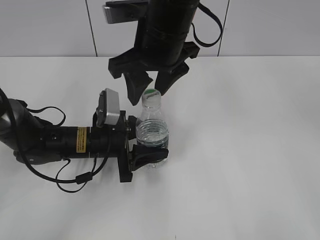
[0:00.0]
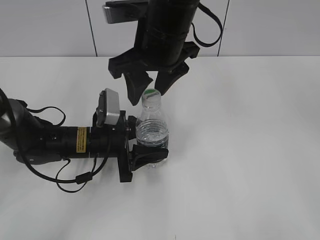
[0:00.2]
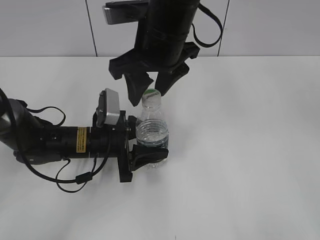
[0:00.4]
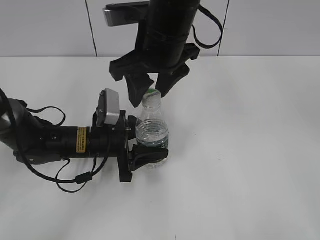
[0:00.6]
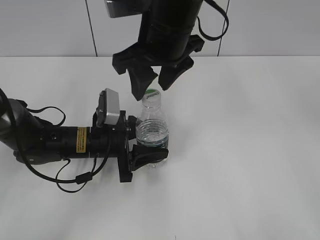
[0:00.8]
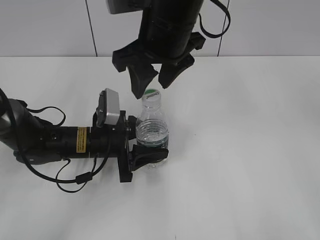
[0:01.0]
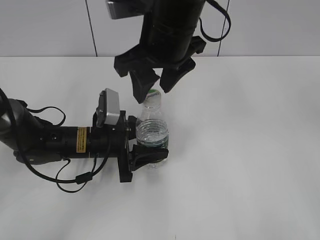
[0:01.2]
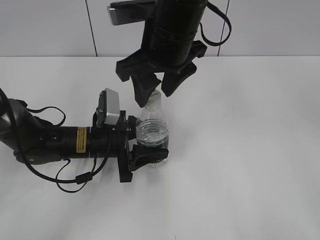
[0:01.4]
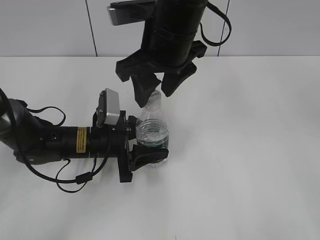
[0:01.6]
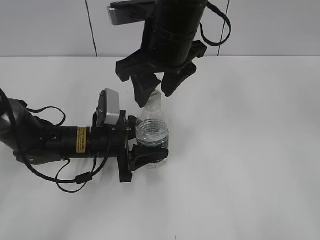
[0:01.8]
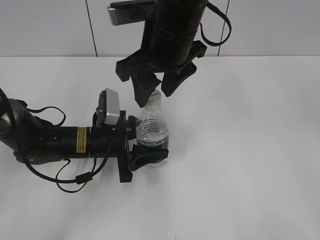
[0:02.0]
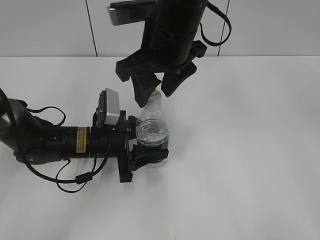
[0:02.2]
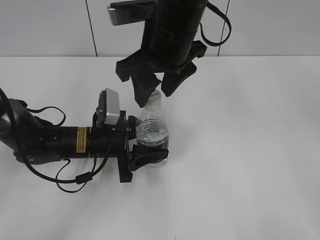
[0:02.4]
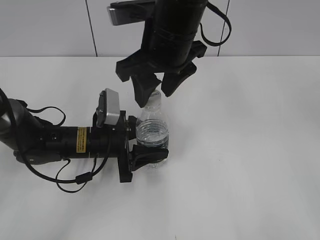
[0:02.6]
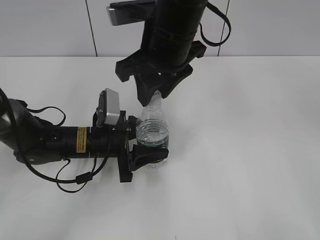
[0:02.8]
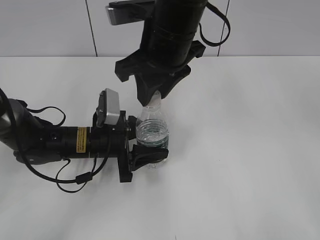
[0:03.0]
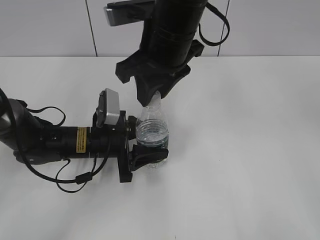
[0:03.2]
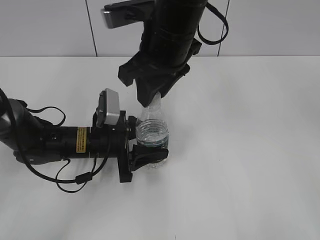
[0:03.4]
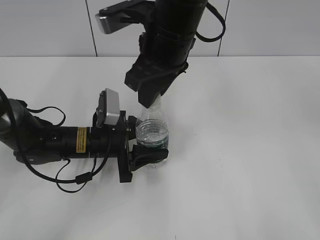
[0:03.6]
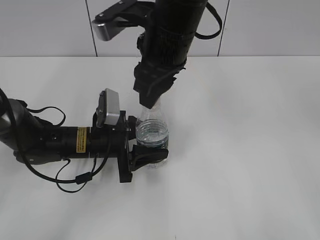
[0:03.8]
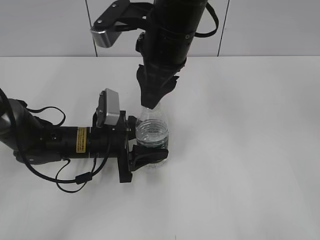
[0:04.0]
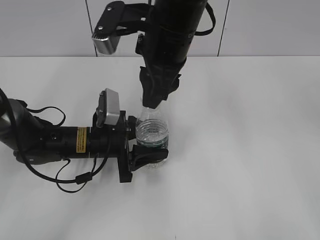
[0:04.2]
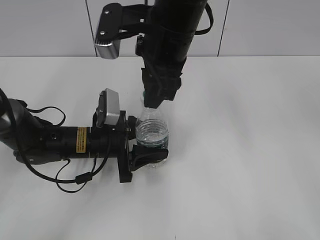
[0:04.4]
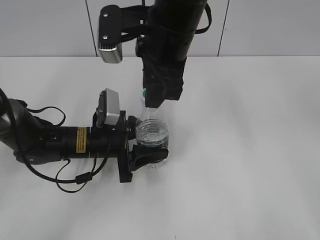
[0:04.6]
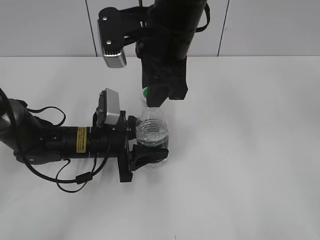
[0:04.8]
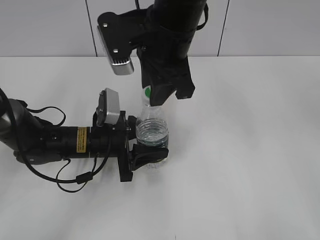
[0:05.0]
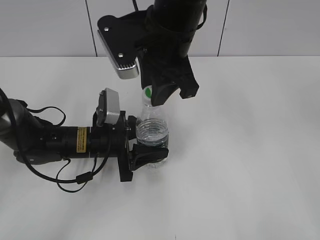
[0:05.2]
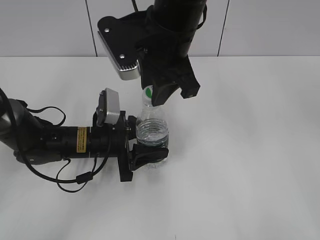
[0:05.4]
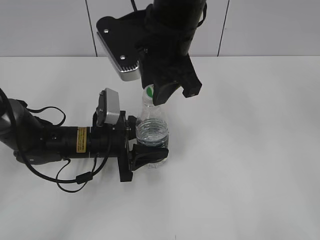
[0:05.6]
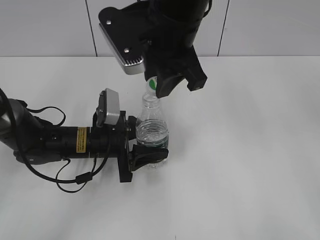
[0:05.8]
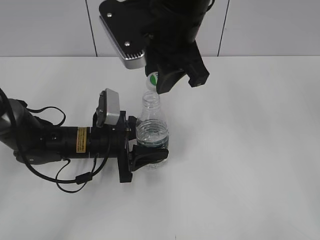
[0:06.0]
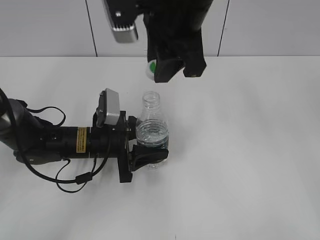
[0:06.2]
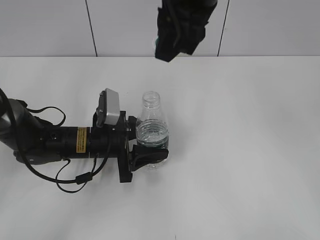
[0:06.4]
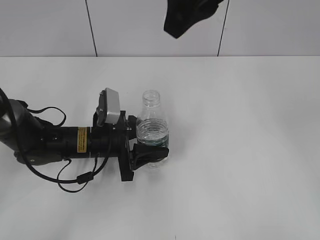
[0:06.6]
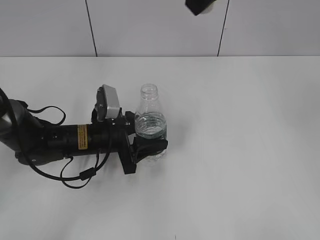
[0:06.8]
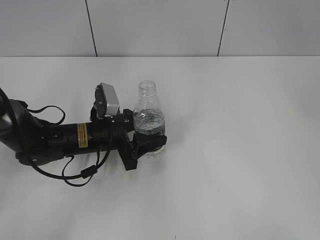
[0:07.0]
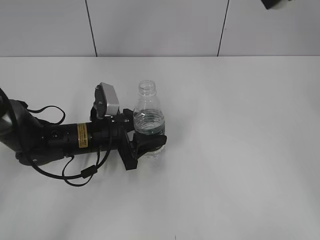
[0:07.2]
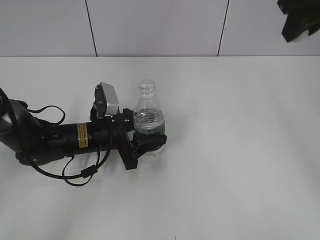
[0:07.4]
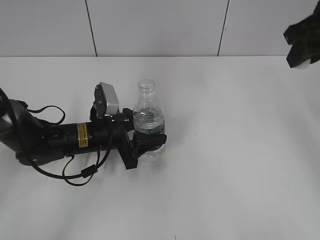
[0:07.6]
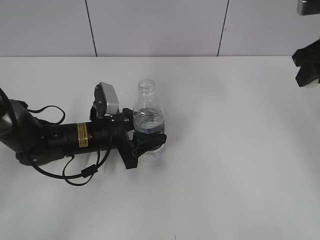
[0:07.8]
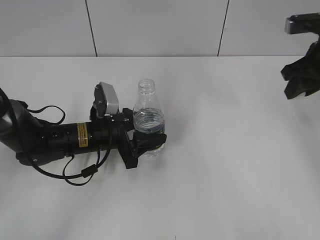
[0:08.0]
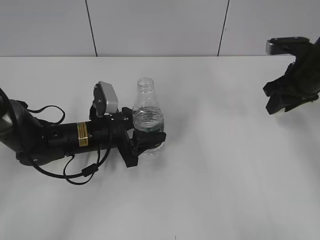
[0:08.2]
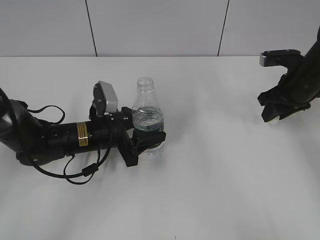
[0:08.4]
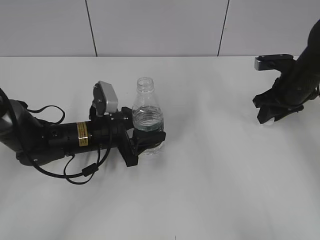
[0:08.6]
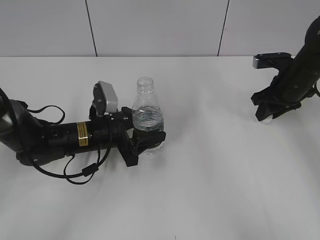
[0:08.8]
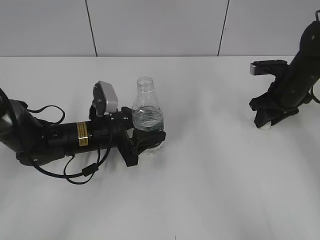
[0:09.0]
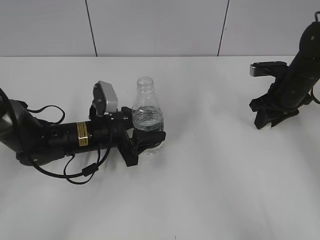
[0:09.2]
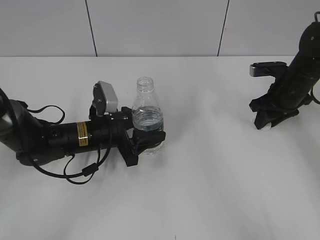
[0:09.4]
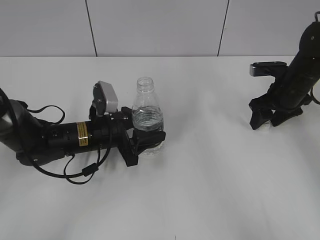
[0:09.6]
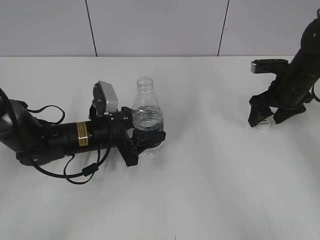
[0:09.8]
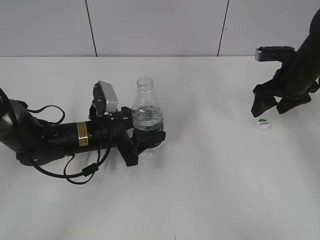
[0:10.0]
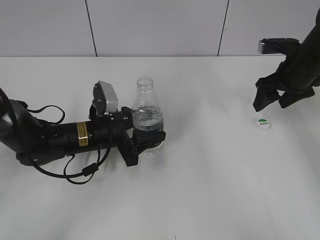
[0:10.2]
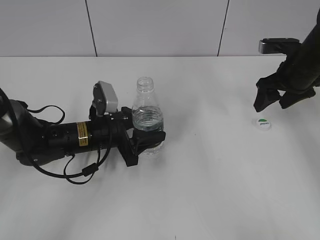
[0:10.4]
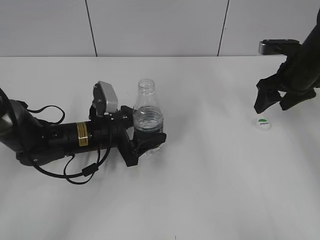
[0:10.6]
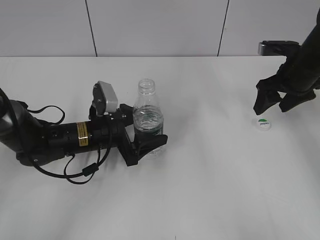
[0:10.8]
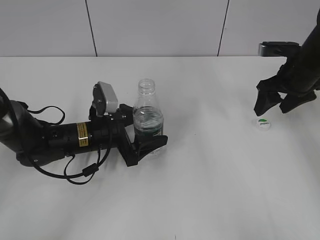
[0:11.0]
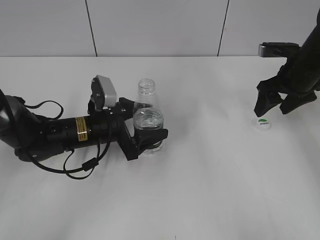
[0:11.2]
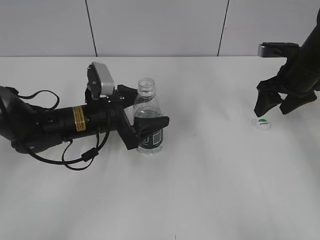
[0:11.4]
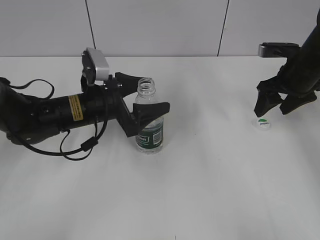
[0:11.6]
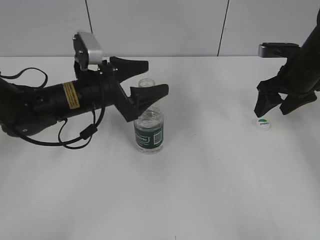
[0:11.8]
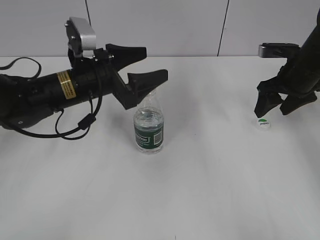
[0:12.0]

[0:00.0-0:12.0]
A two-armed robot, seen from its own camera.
Step, 0:00.0 to 0:06.0: Unscrew the bottle cap with the right gripper while holding the bottle with the left gripper.
Step, 0:06.2 to 0:10.2: Place the bottle cap on the table with the right gripper.
Step, 0:10.4 to 0:11.2: Place the bottle on the table with the left gripper.
0:00.0 to 0:01.6: The grippers move only a little.
0:01.6 to 0:03.0: The right gripper closes.
0:06.0 to 0:07.6: The right gripper is displaced to the right by about 25 cm.
0:07.6 to 0:09.0: The right gripper goes roughly 20 cm downward.
0:09.0 to 0:10.4: The right gripper travels upward by approximately 5 cm, and opens.
0:10.4 to 0:12.0: The left gripper heads upward, covering roughly 10 cm, and opens its fingers.

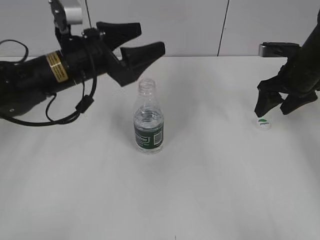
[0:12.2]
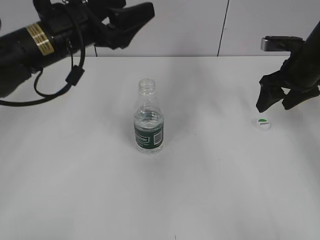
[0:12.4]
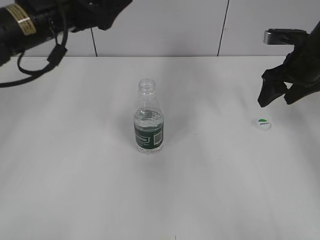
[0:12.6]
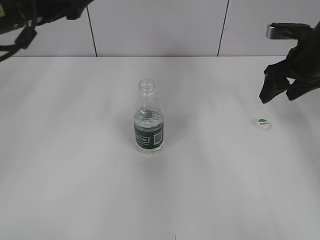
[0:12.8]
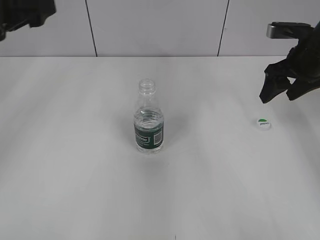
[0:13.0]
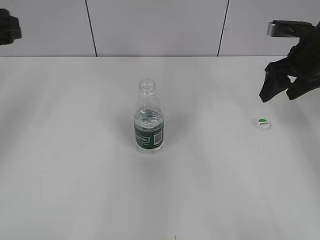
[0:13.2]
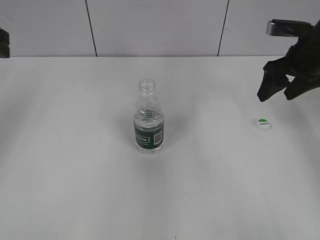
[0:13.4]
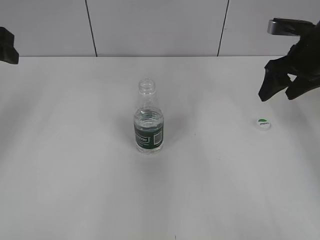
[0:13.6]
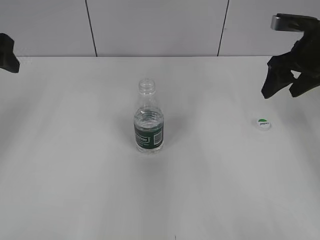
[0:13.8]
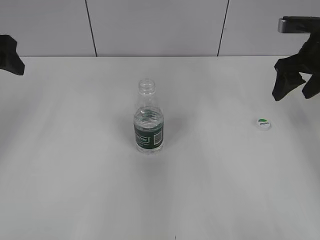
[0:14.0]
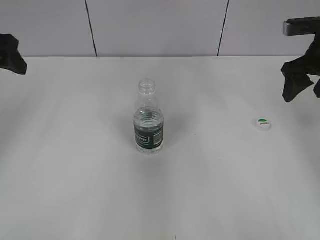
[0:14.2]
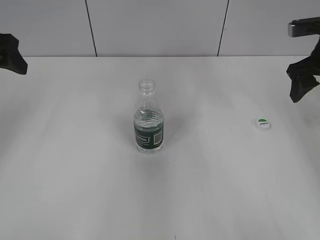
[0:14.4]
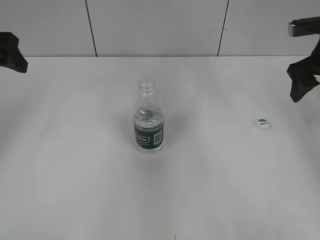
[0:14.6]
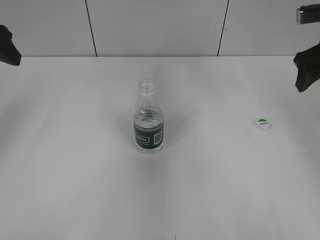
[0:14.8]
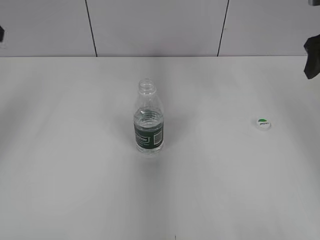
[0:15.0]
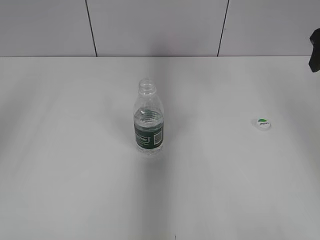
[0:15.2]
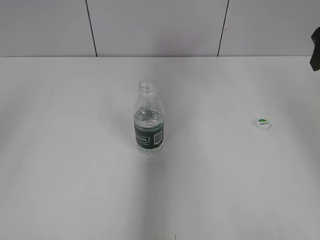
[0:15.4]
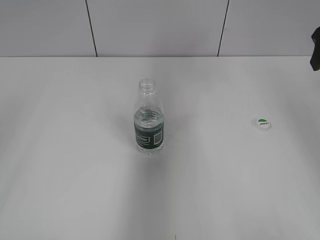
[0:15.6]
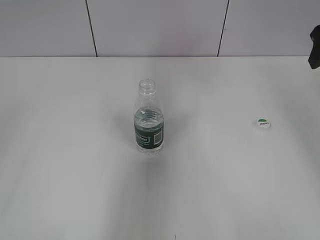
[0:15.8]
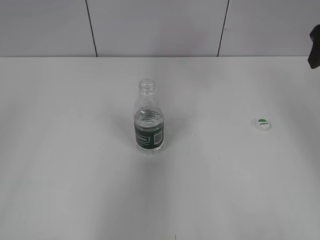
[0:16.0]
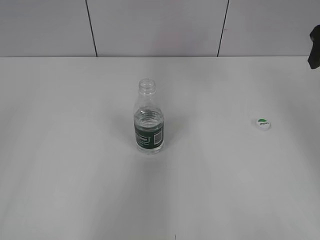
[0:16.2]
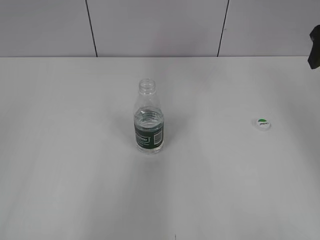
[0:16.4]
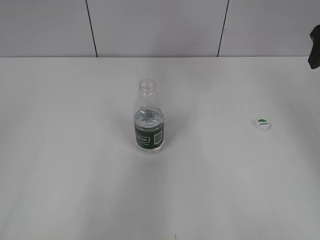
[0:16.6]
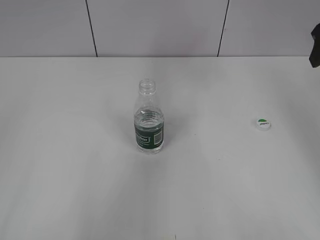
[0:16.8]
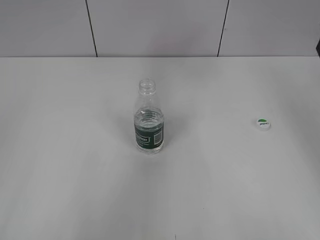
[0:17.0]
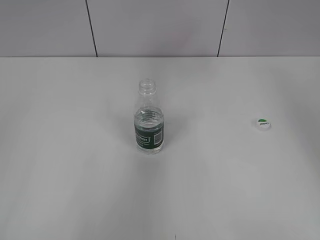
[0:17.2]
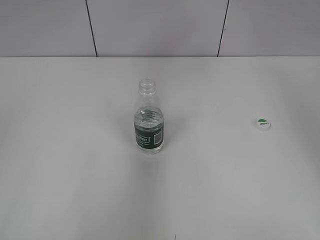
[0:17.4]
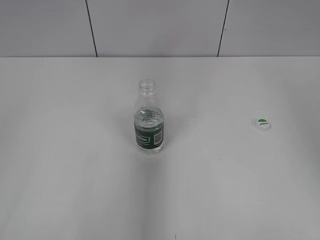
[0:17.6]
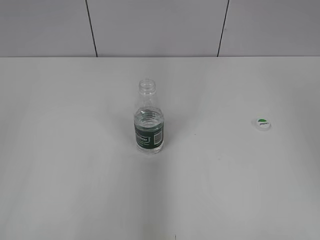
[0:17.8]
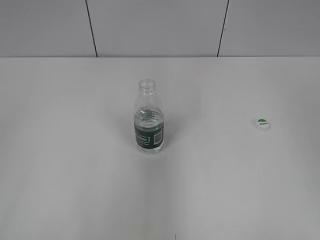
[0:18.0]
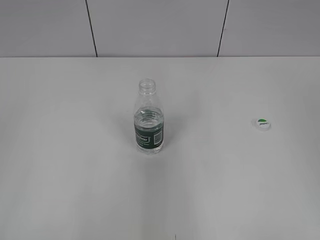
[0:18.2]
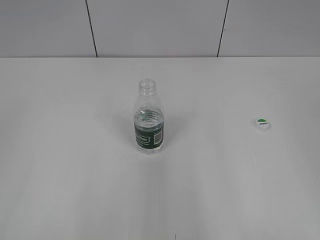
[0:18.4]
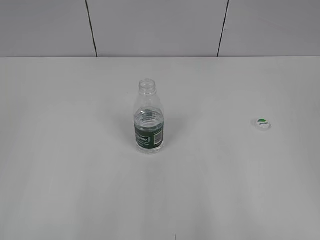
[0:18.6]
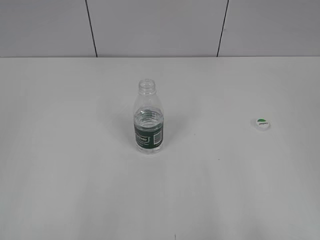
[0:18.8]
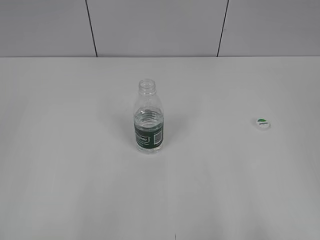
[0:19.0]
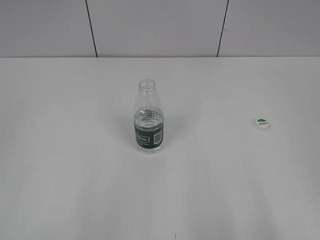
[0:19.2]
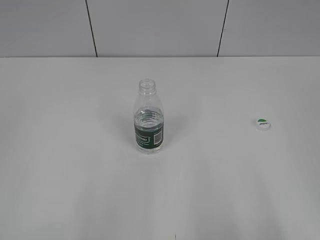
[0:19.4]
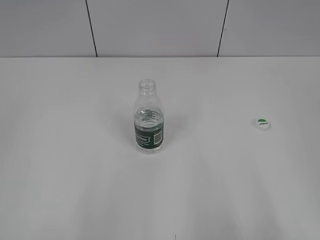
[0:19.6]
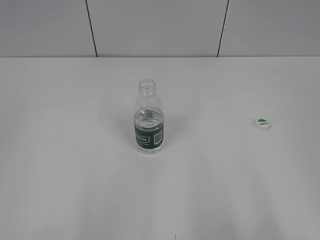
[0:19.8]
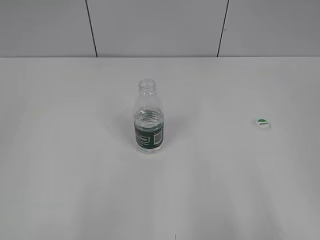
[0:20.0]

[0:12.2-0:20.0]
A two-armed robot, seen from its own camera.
0:12.2 to 0:13.8: The right gripper shifts some 5 cm upward. The left gripper shifts about 20 cm to the left and upward.
0:13.8 to 0:15.4: The right gripper travels upward by about 5 cm. Meanwhile the left gripper goes some 25 cm backward and upward.
0:15.4 to 0:16.8: The left gripper moves backward and downward, roughly 20 cm, and closes its fingers.

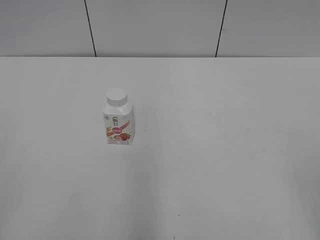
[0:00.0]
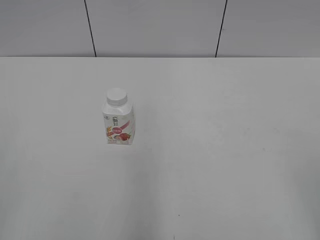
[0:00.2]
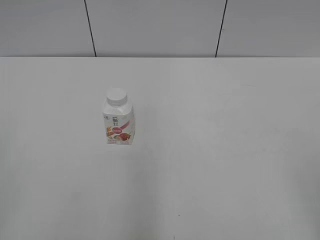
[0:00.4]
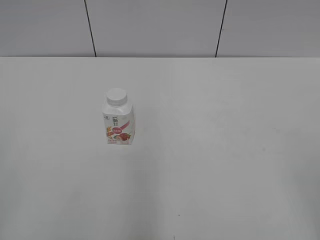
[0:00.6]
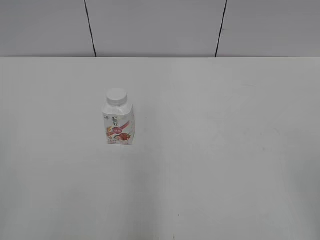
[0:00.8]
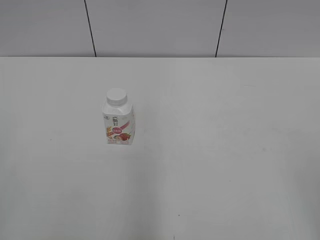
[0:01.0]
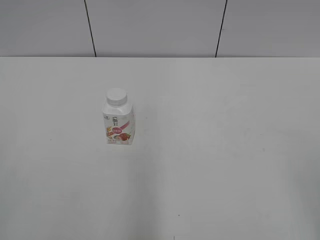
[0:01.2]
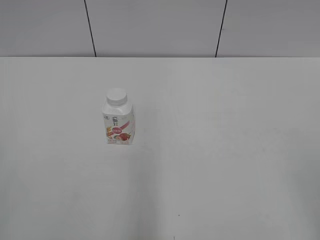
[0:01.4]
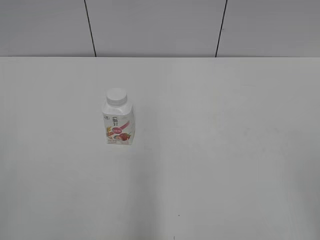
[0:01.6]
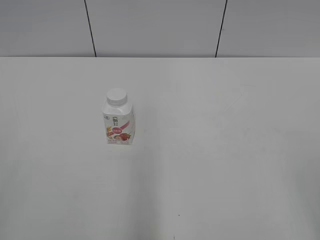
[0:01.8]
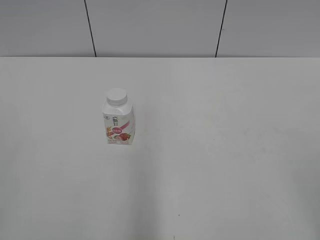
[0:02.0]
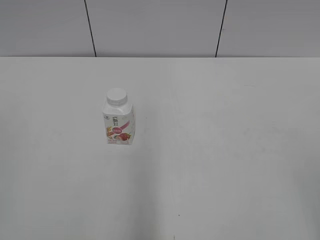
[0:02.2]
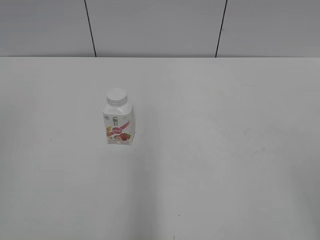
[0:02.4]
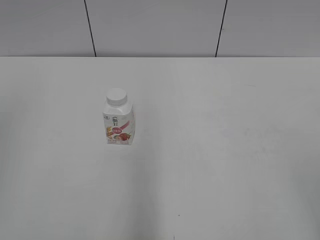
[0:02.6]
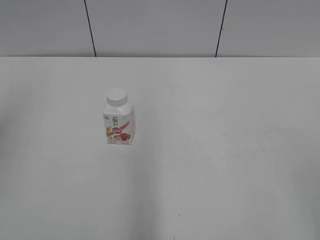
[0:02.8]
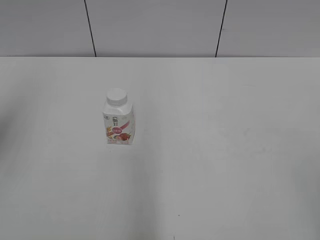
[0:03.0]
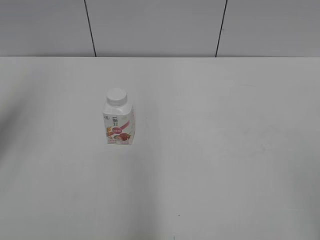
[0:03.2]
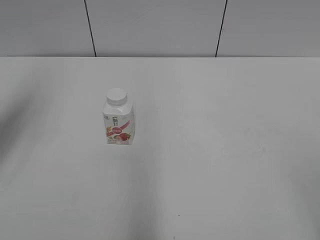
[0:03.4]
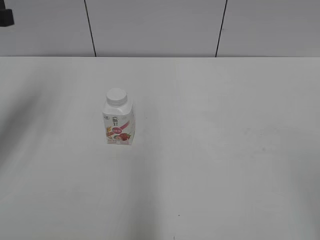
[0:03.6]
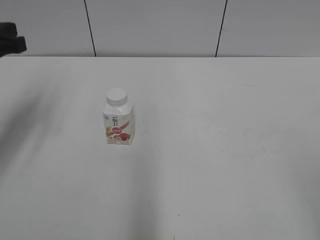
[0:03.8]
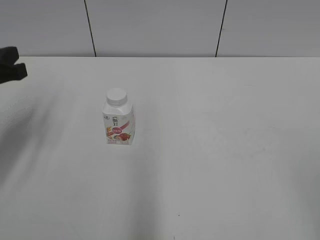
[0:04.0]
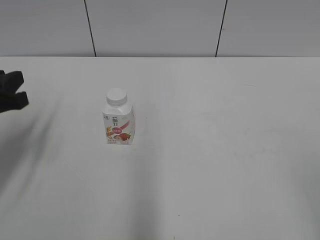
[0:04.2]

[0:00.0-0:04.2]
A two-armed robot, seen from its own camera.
0:02.8 to 0:04.2: The left gripper is displaced downward and forward by roughly 25 cm.
